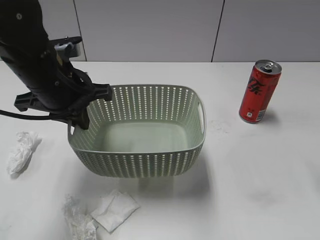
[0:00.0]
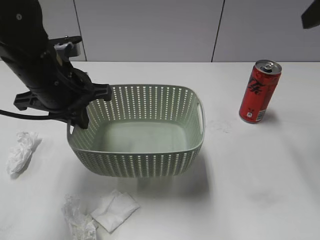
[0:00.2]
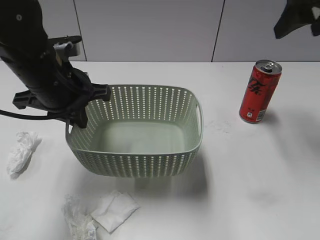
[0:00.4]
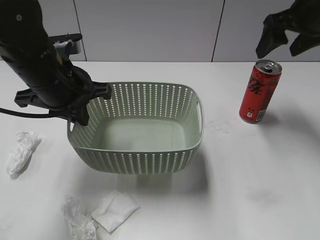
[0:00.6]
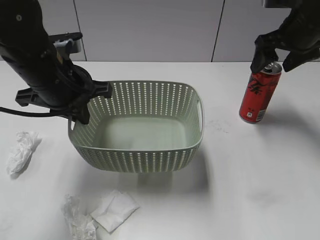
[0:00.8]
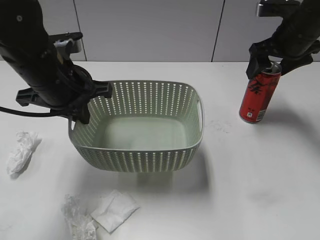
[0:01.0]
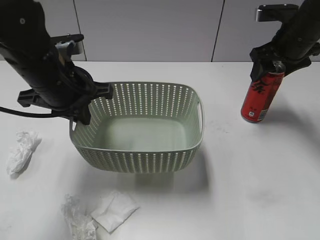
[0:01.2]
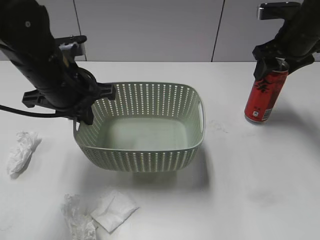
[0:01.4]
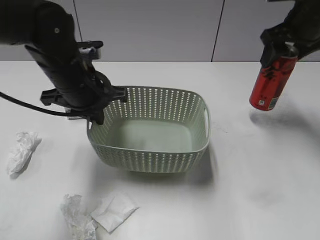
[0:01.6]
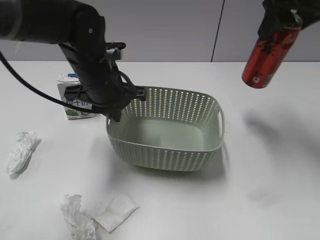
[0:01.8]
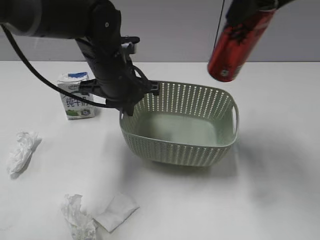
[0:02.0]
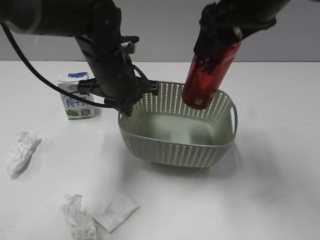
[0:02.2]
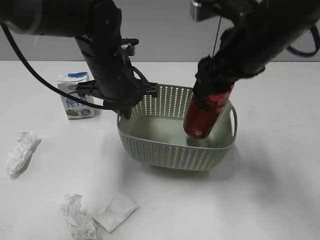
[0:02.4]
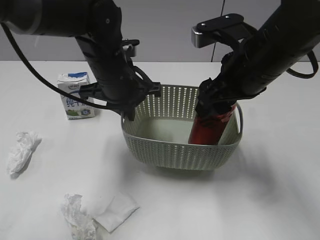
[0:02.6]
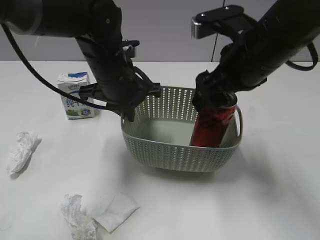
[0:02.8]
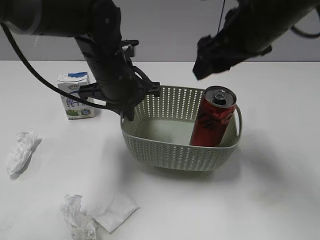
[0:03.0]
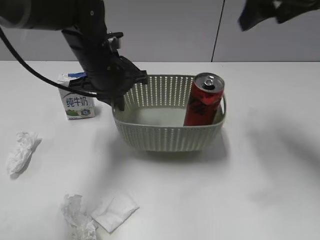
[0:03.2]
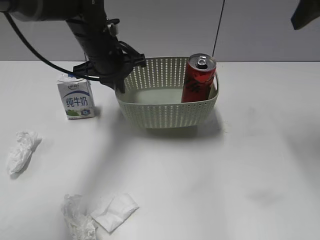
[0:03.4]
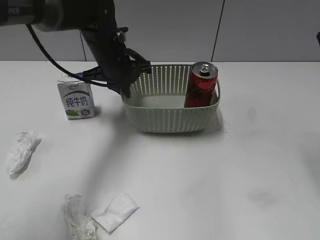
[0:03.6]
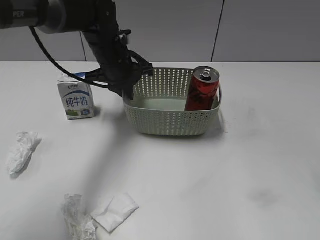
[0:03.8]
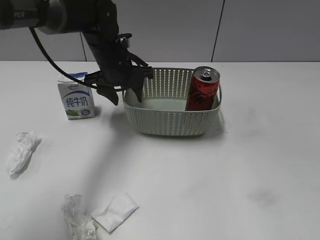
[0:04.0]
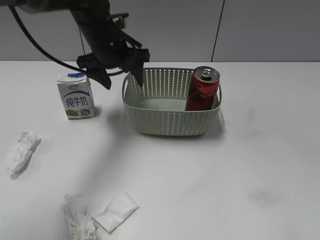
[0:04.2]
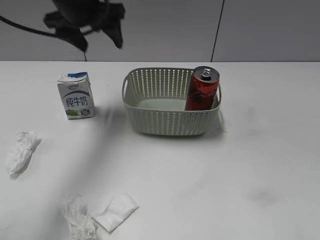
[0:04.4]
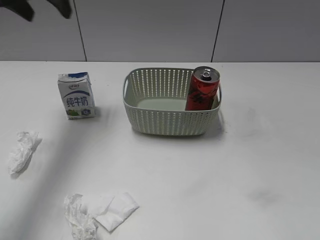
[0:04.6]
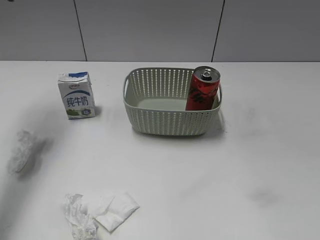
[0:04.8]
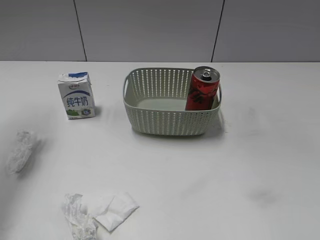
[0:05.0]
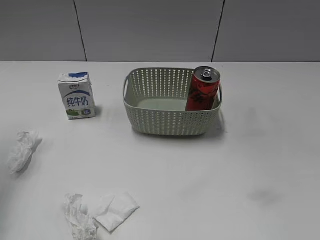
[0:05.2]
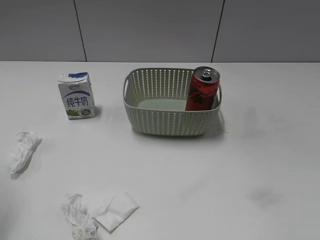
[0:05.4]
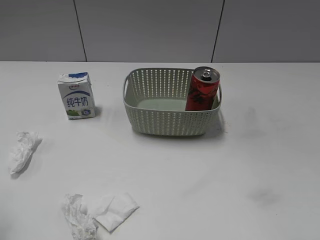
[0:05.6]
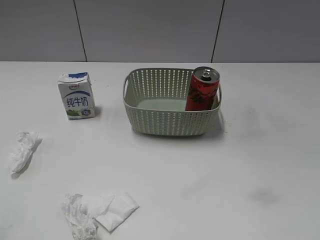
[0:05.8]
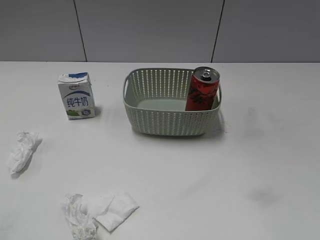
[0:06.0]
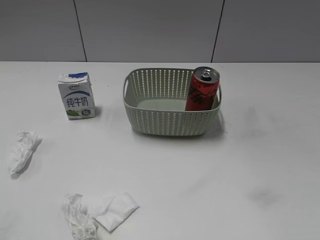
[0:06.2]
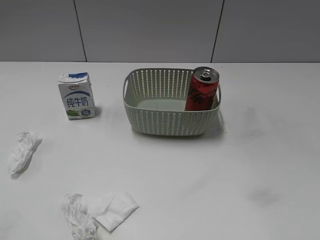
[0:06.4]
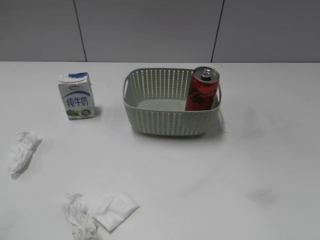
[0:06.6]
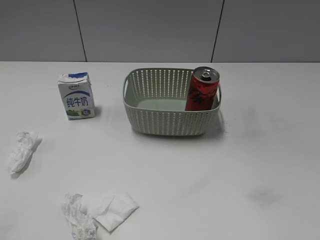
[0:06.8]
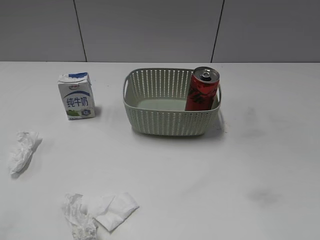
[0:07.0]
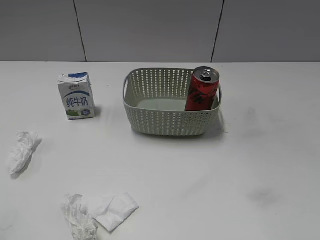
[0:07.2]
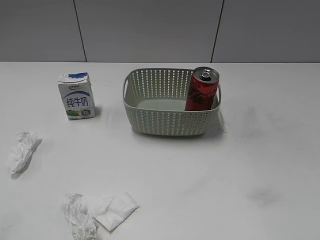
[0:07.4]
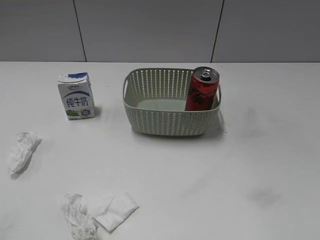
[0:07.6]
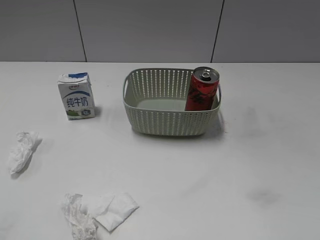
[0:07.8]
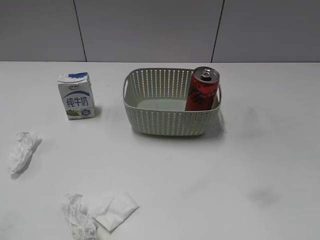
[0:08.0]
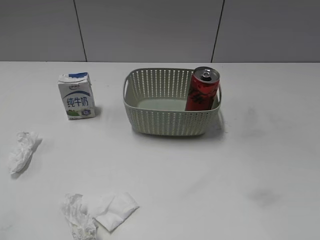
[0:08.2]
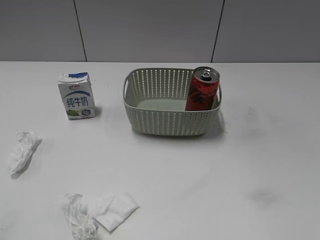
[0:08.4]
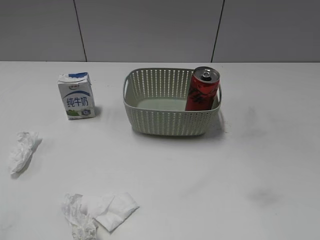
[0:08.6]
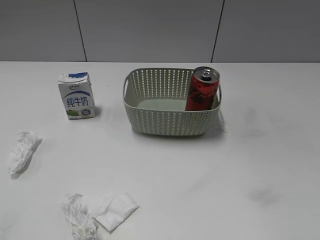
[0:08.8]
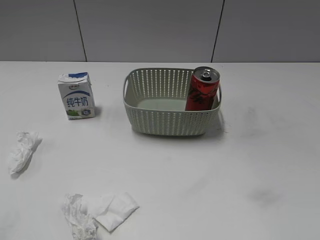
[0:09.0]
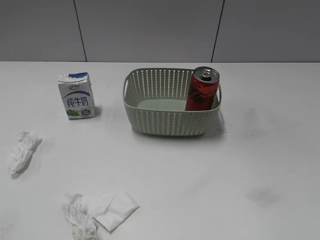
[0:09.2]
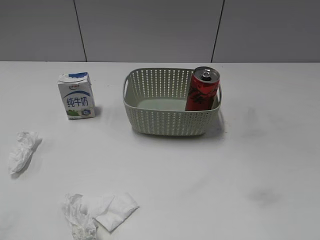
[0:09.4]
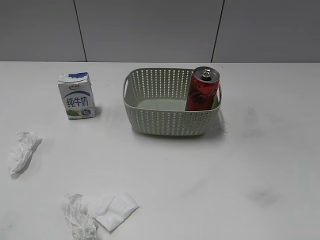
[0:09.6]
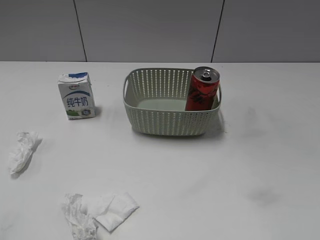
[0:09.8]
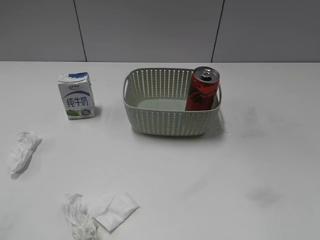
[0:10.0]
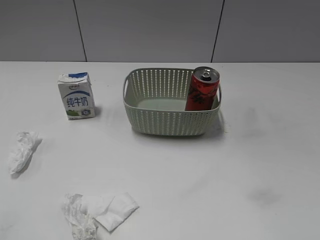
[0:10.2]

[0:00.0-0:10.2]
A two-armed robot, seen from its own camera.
Step, 0:01.4 to 0:02.8: Place the cola can in the basket with right gripper.
Step, 0:03.0 to 0:04.0: Place the basket on the table with left gripper.
0:00.0 to 0:01.4: The right gripper goes about 25 cm forward and downward, and closes its fingers.
0:01.4 to 0:03.0: The right gripper swings up and down, approximately 15 cm each way, with 2 reversals, and opens up; the left gripper is displaced to the right by some 5 cm.
0:03.0 to 0:04.4: The right gripper travels backward and to the right by roughly 30 cm. The left gripper travels upward, to the left and forward by approximately 15 cm, and opens.
0:04.4 to 0:05.8: The left gripper heads backward and to the left, covering about 40 cm.
0:07.2 to 0:10.2: Both grippers stay put.

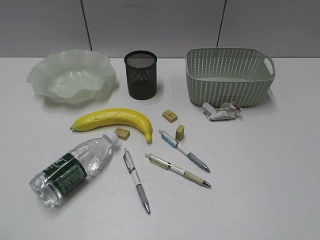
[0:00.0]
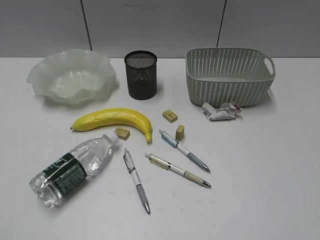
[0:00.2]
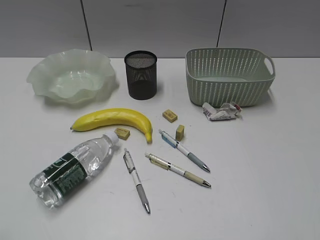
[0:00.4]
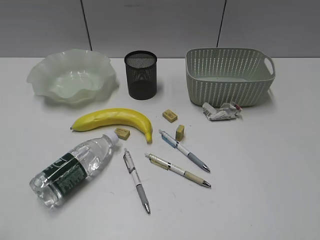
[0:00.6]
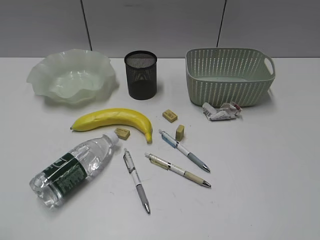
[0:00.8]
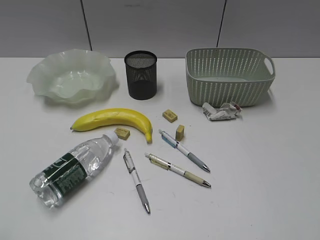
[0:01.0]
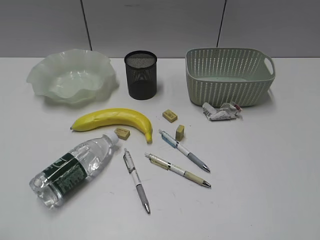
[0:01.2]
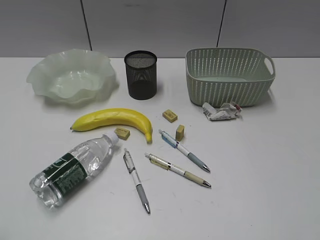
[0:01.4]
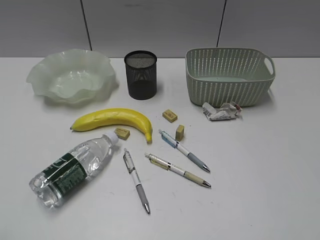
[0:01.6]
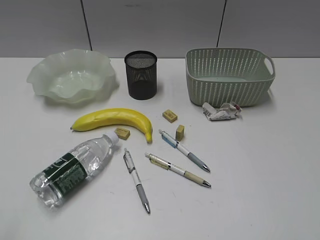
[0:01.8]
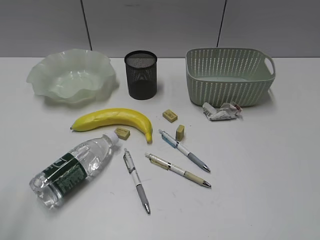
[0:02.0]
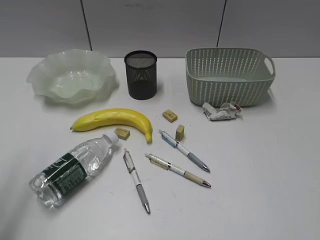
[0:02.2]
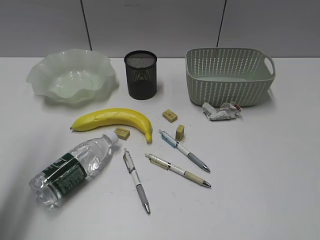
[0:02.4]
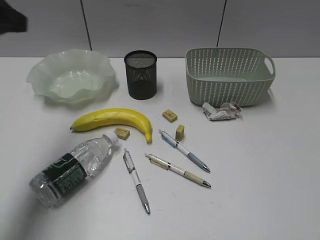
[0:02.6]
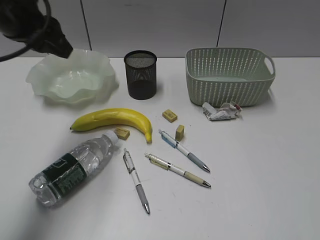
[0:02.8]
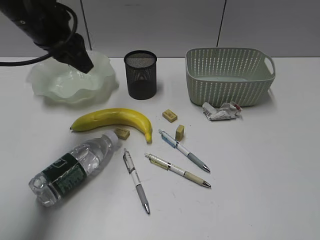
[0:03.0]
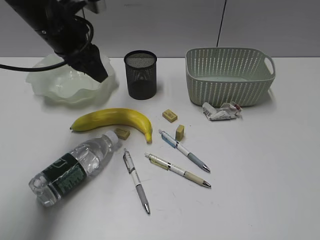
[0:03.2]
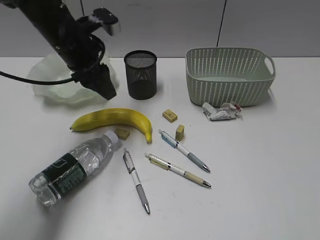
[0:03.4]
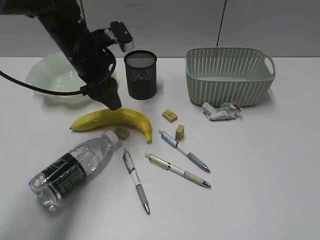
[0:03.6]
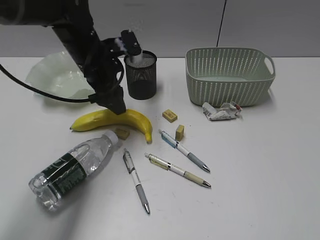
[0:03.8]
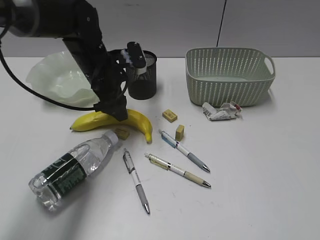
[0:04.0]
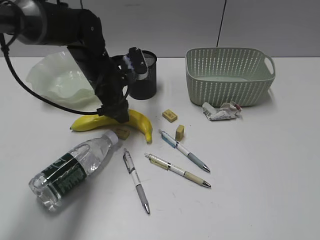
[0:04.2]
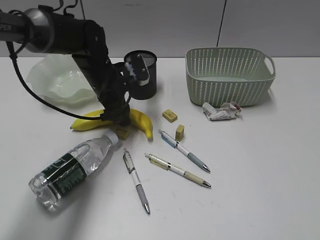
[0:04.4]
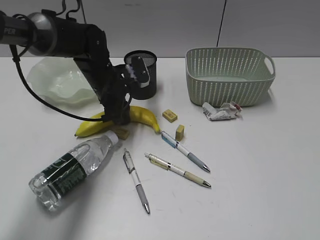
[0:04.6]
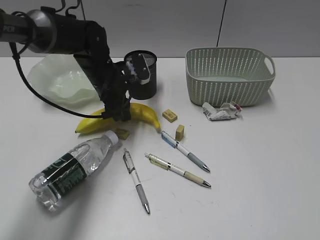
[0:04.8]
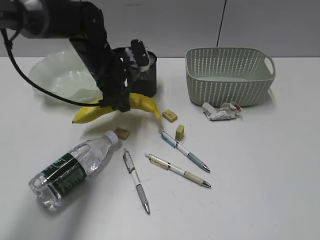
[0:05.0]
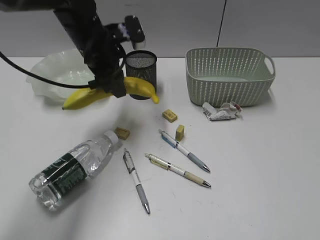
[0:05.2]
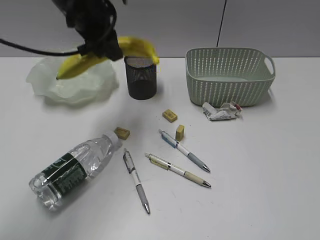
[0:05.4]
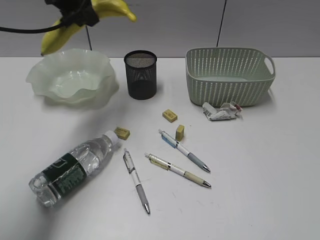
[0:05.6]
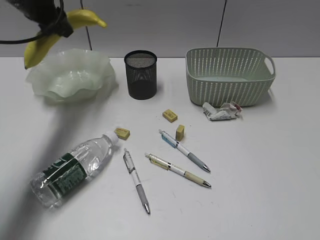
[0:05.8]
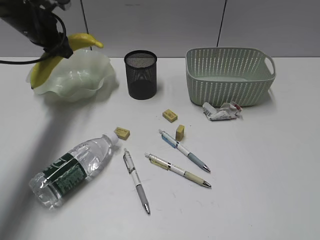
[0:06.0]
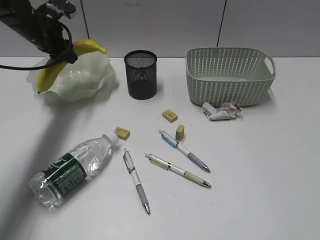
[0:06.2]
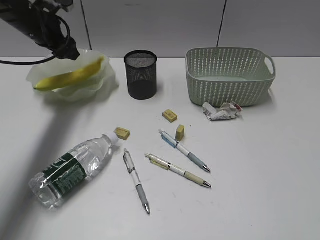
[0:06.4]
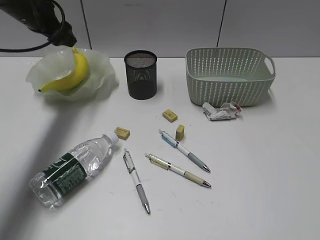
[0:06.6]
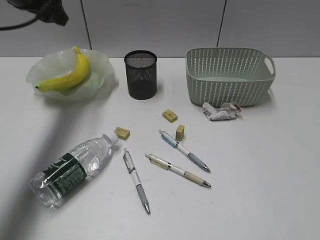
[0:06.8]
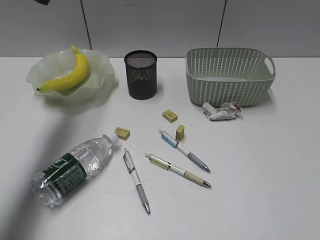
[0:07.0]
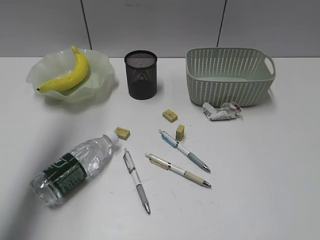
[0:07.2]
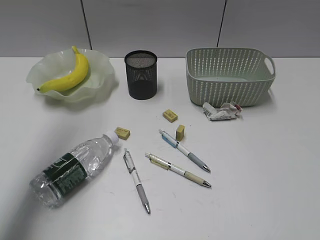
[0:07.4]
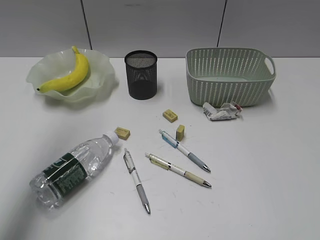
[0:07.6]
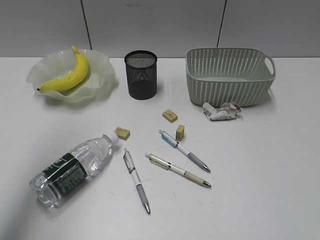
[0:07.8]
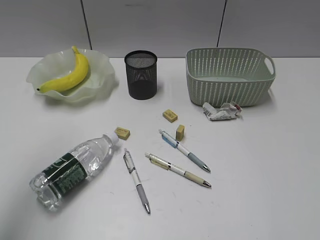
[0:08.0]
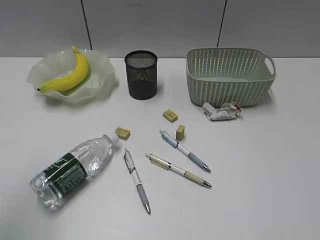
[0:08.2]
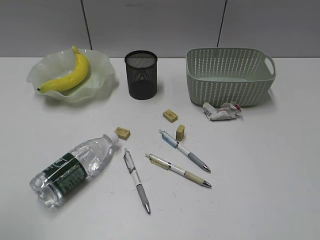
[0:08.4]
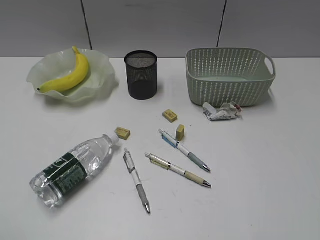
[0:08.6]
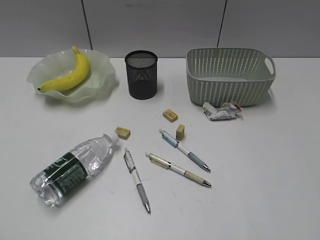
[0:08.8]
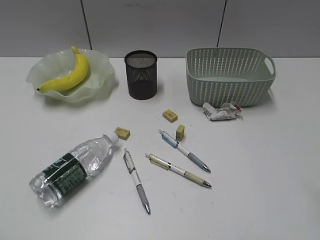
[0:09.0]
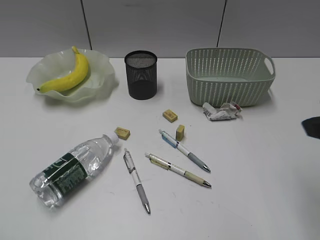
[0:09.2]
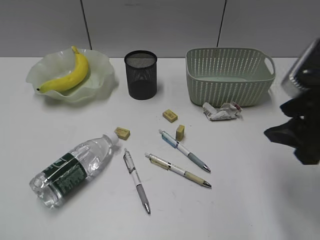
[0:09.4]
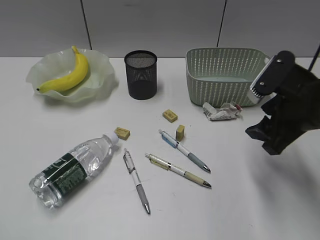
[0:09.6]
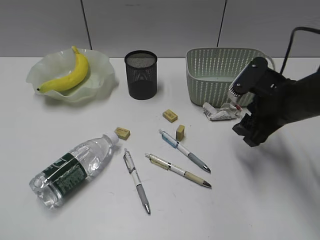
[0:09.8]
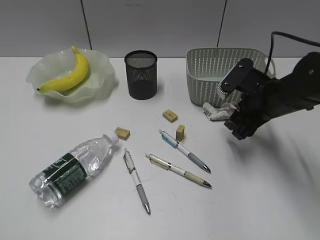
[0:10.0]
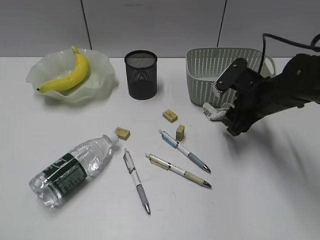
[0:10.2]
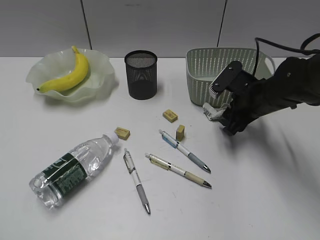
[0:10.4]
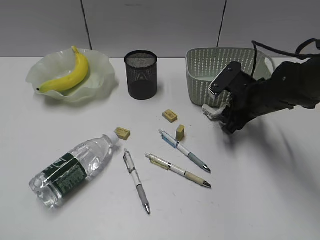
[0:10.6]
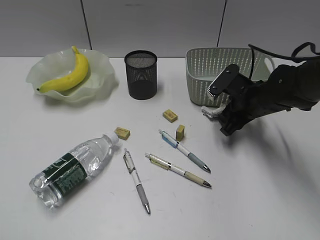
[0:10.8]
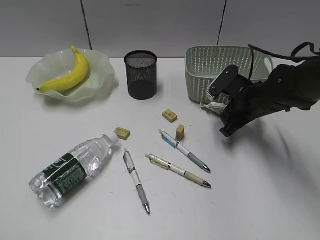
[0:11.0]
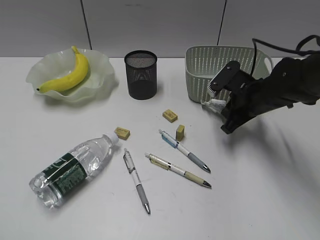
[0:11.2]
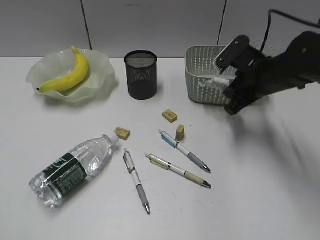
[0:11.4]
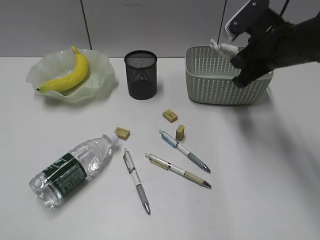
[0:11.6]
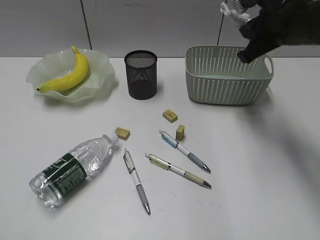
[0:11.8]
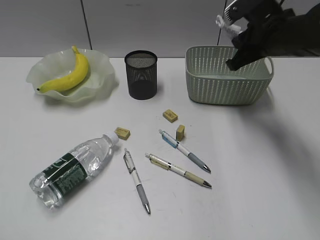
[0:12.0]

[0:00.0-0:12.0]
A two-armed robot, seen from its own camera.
Step, 0:01.8 to 0:04.6: Grasp the banana with left gripper.
Step, 0:04.8 to 0:06.4: Place the banana in the plate with left gripper.
Step, 0:06.6 to 0:11.0: Grasp the waste paper with right gripper.
0:01.6 to 0:03.0: The left gripper is displaced forward by about 40 cm.
0:03.0 to 0:04.4: The left gripper goes approximately 15 cm downward and to the right.
0:04.4 to 0:06.0: The left gripper travels to the left, upward and forward by roughly 20 cm.
0:06.0 to 0:07.6: The left gripper shifts some 35 cm upward and backward.
0:07.6 to 0:09.0: The left gripper travels backward and downward by approximately 35 cm.
0:09.0 to 0:10.4: The right gripper heads forward and downward, covering about 35 cm.
0:10.4 to 0:12.0: The right gripper is displaced upward by about 10 cm, and closes its fingers.
